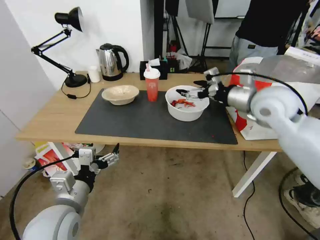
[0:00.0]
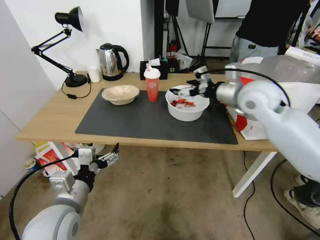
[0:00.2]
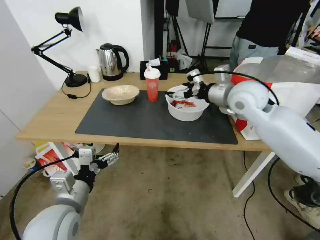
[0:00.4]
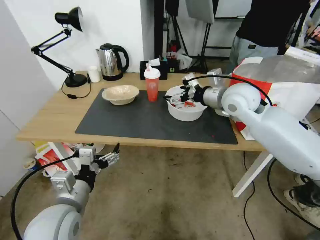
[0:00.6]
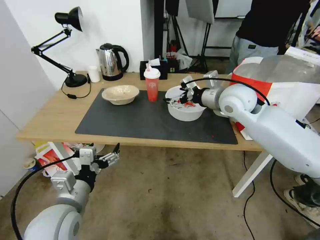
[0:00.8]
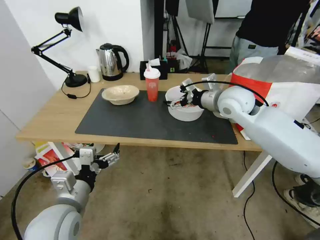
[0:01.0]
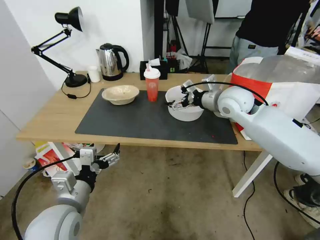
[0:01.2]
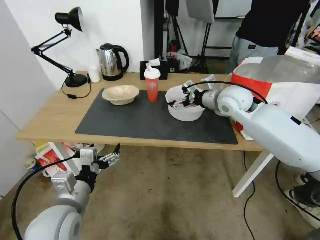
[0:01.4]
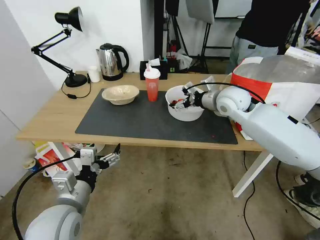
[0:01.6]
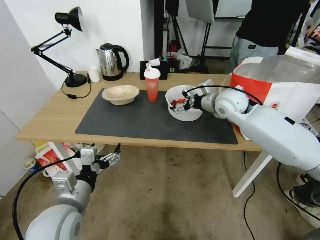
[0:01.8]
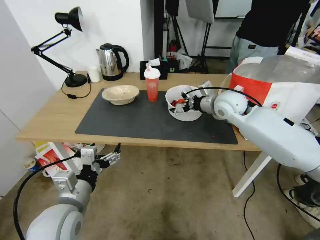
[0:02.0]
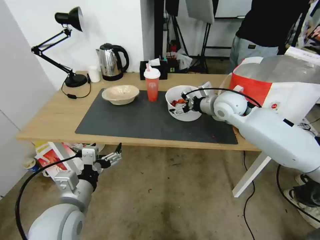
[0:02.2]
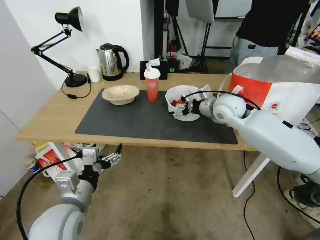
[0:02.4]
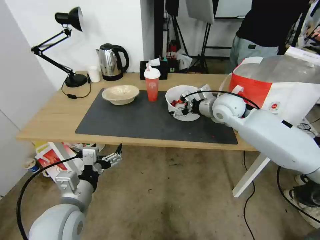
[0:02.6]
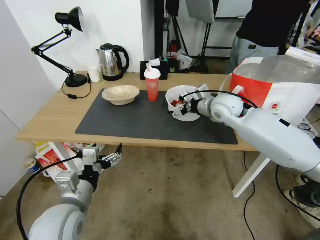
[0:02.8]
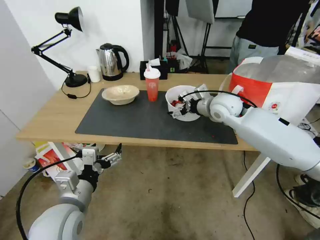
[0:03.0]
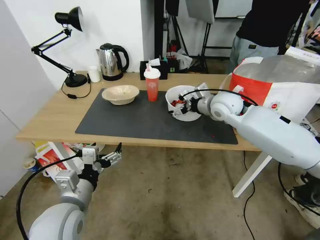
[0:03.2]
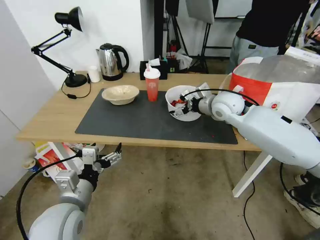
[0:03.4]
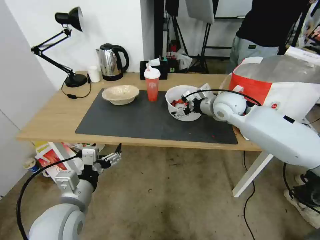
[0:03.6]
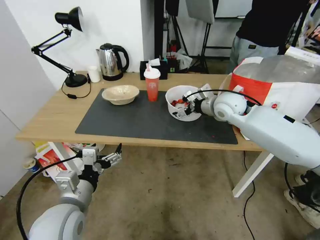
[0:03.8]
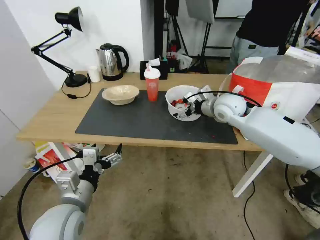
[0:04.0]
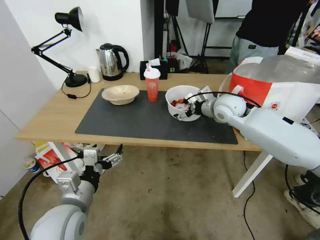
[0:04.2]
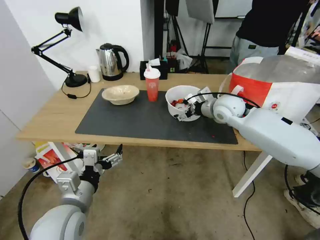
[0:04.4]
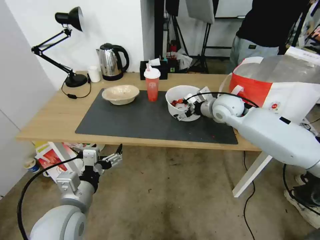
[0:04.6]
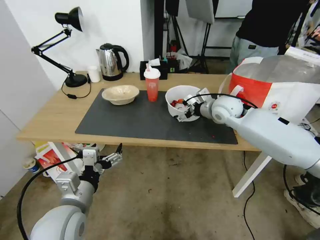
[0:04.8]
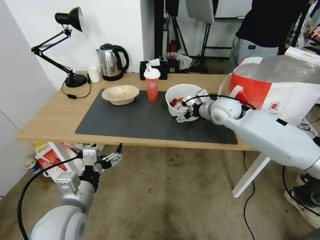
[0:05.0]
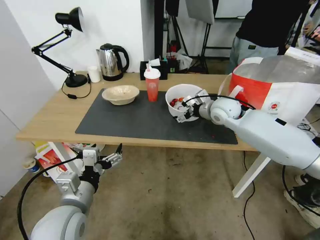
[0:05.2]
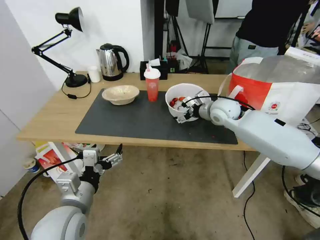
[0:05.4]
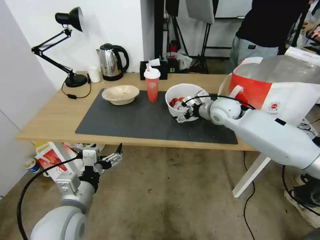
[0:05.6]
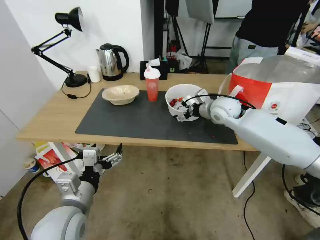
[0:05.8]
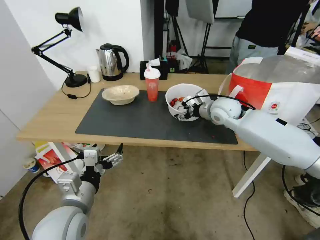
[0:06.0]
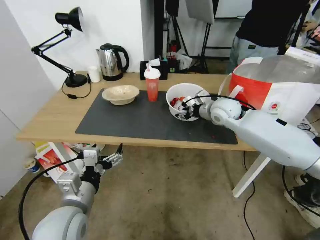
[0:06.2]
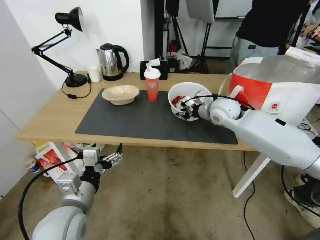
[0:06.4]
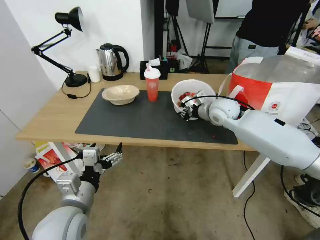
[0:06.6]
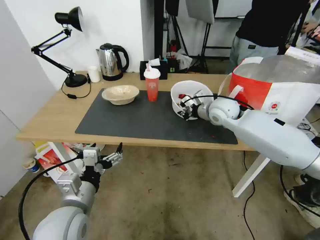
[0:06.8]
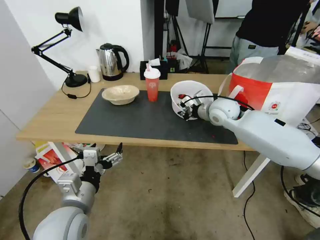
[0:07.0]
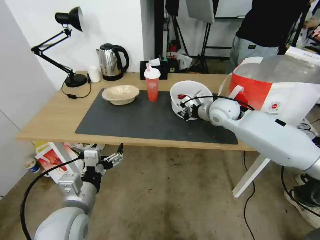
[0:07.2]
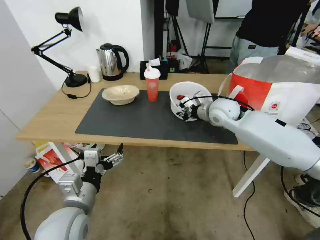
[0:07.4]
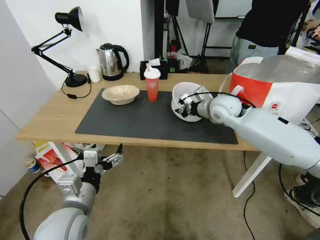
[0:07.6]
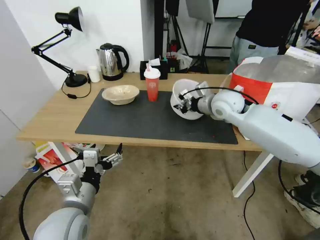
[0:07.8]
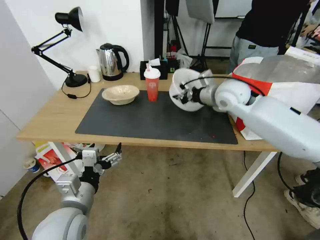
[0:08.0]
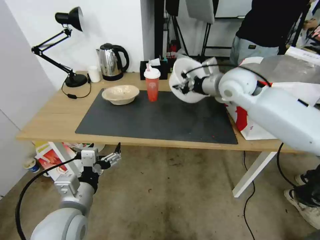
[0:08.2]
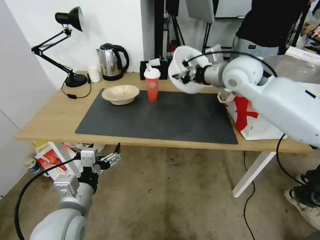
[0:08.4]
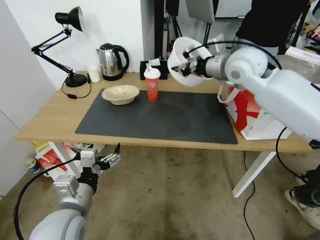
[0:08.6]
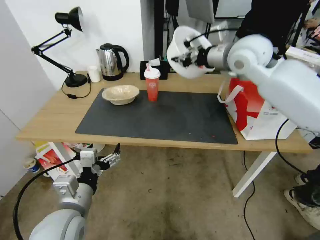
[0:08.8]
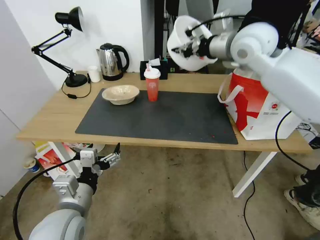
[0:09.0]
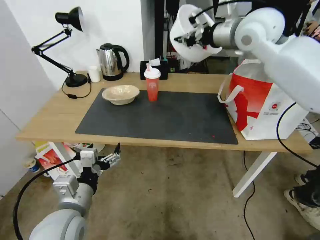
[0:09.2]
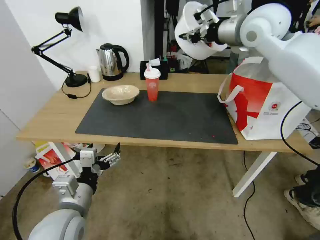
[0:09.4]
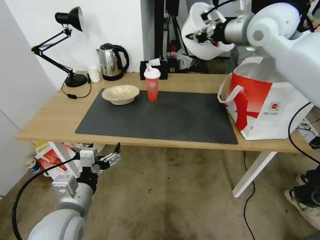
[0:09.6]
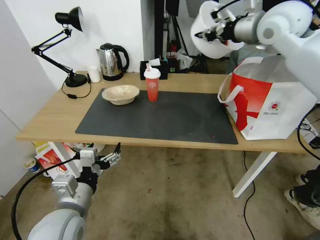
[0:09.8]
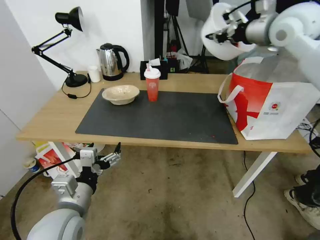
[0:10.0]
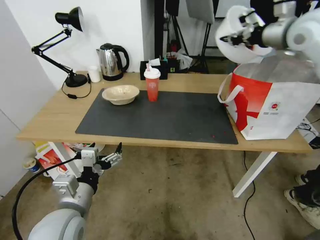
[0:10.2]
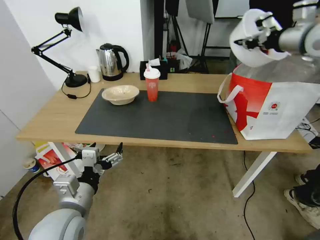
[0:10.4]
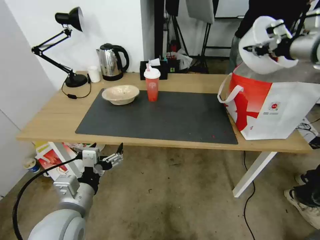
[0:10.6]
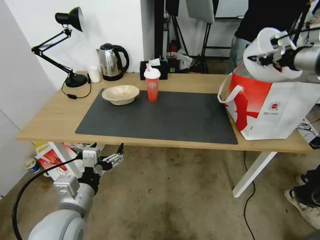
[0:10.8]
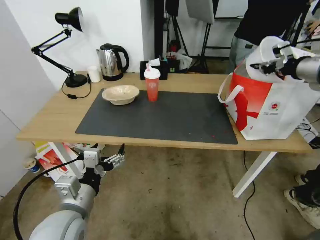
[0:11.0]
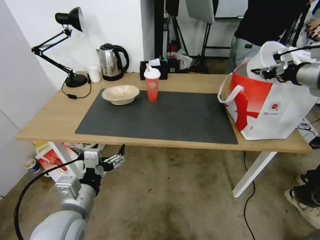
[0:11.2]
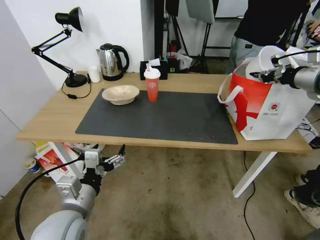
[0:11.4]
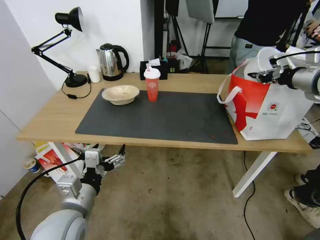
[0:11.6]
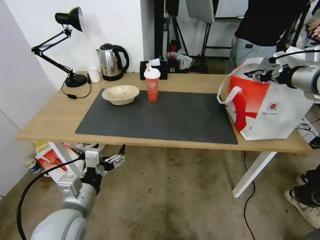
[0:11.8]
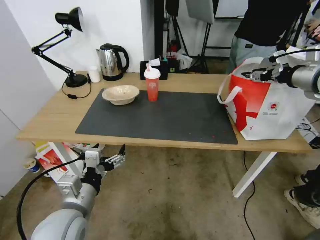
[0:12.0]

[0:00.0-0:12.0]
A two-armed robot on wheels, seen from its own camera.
Task of the whole recording: Pick up the trash from the table and place it into the takeout bag.
0:00.0 to 0:01.6: The right gripper goes some 15 cm forward and to the left.
0:01.6 to 0:06.0: There are only small adjustments of the grippers.
0:06.0 to 0:07.6: The right gripper closes its fingers.
0:07.6 to 0:09.0: The right gripper travels upward by approximately 20 cm.
0:09.0 to 0:10.4: The right gripper travels to the right by about 15 cm.
0:10.4 to 0:12.0: The right gripper moves downward and to the right, some 10 cm, and opens.

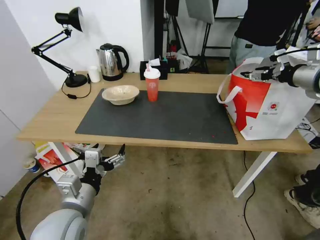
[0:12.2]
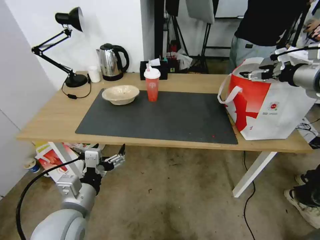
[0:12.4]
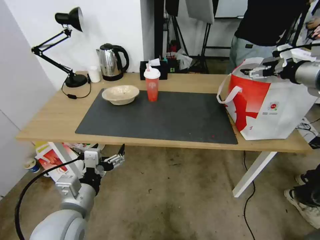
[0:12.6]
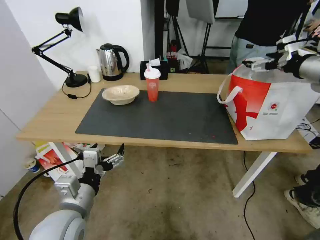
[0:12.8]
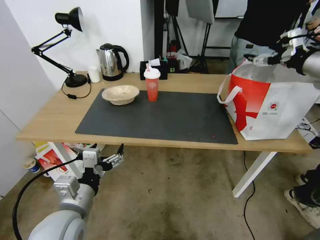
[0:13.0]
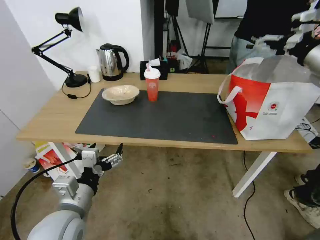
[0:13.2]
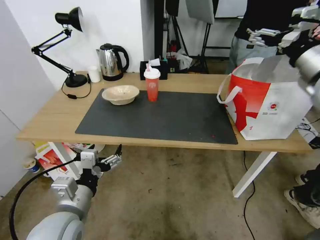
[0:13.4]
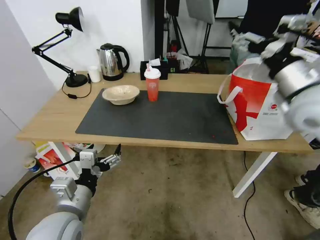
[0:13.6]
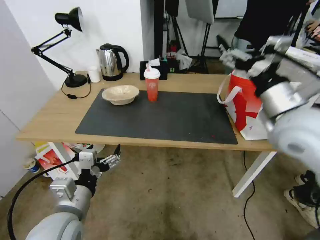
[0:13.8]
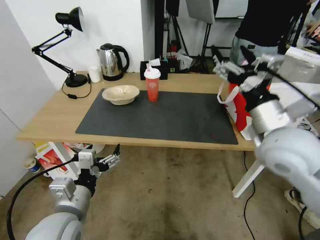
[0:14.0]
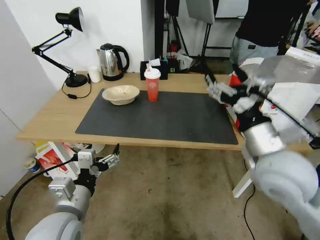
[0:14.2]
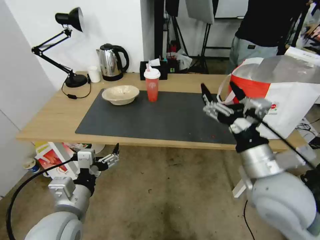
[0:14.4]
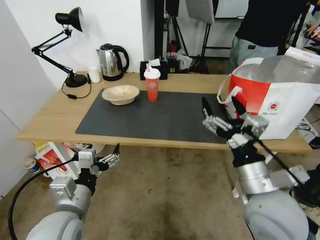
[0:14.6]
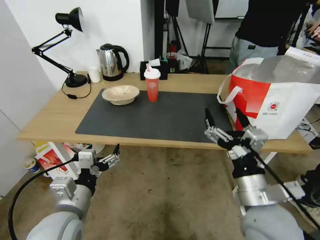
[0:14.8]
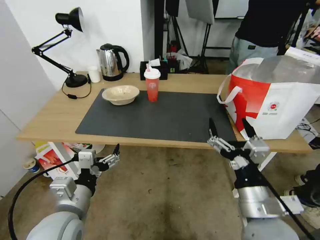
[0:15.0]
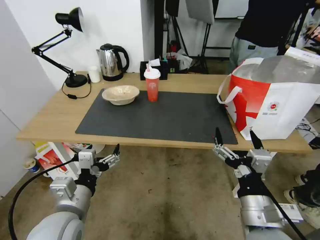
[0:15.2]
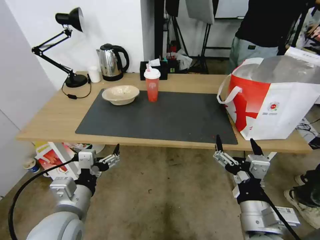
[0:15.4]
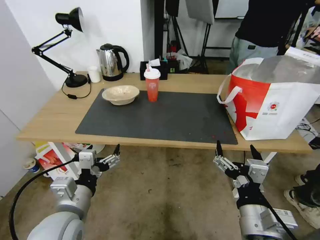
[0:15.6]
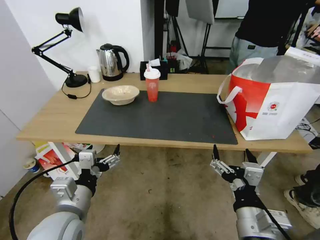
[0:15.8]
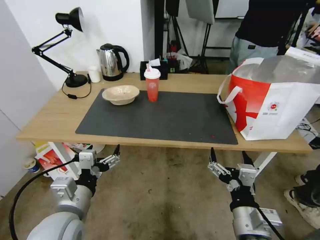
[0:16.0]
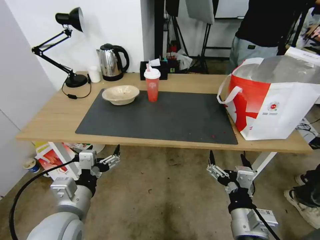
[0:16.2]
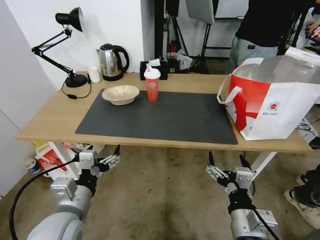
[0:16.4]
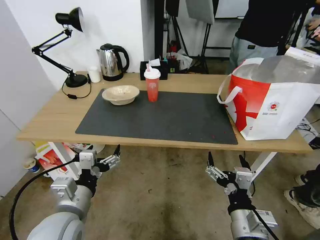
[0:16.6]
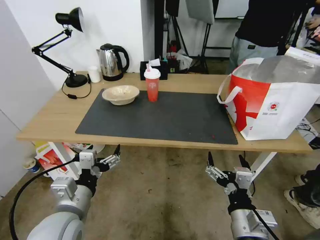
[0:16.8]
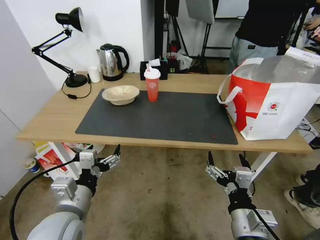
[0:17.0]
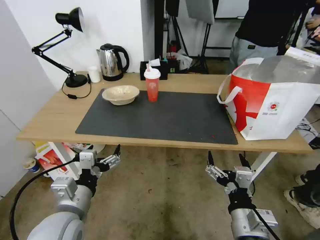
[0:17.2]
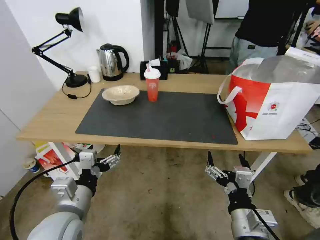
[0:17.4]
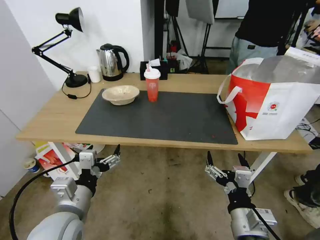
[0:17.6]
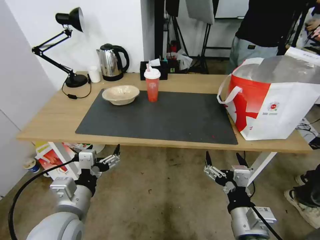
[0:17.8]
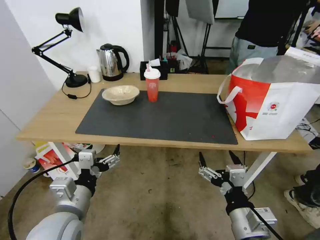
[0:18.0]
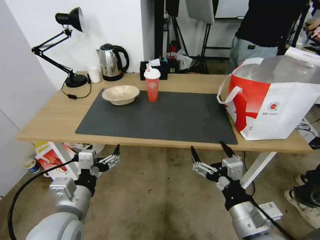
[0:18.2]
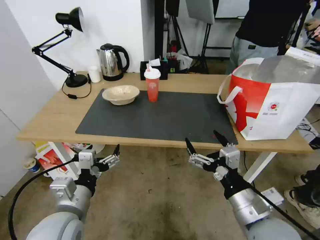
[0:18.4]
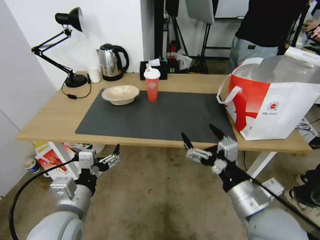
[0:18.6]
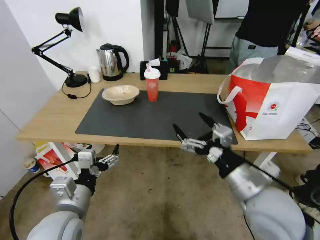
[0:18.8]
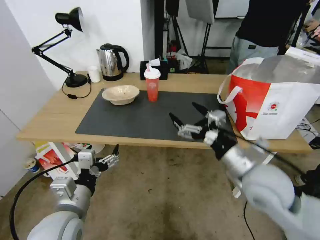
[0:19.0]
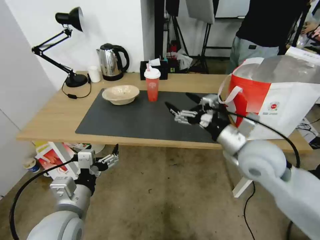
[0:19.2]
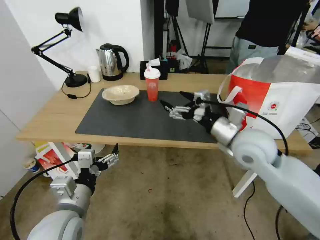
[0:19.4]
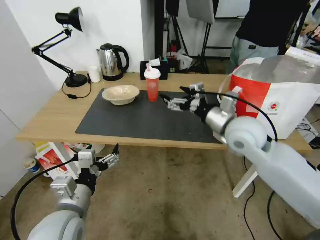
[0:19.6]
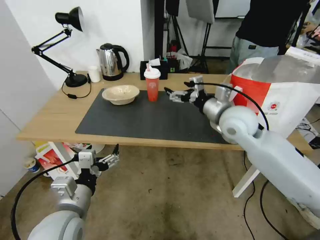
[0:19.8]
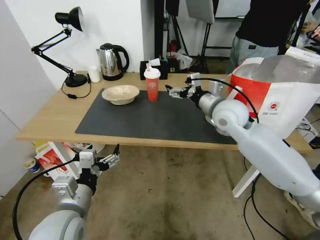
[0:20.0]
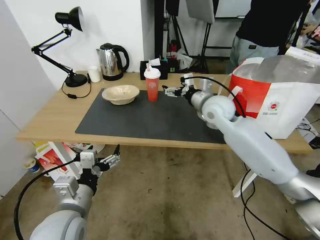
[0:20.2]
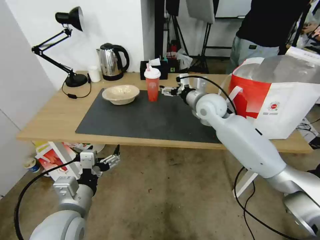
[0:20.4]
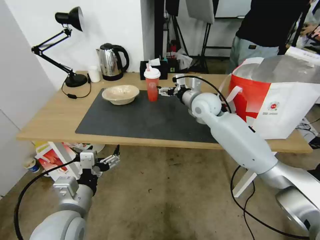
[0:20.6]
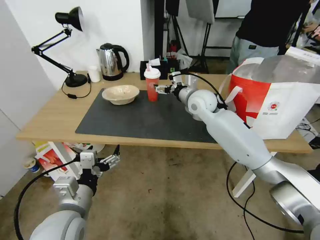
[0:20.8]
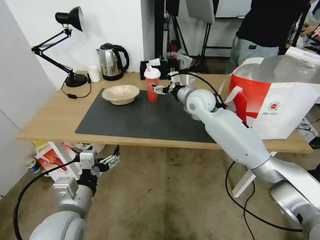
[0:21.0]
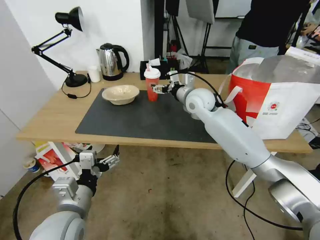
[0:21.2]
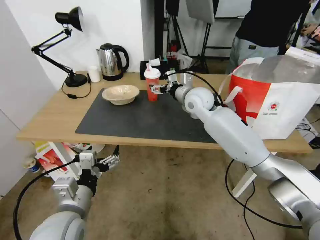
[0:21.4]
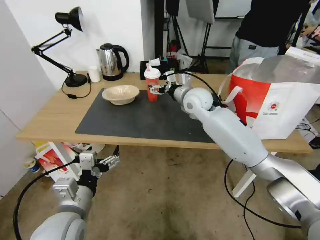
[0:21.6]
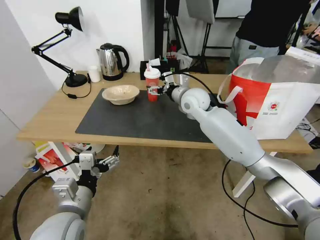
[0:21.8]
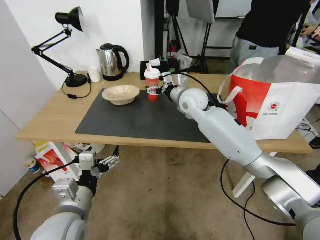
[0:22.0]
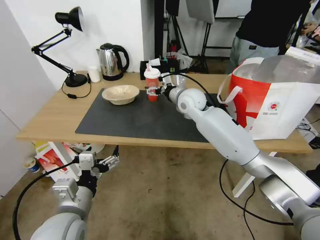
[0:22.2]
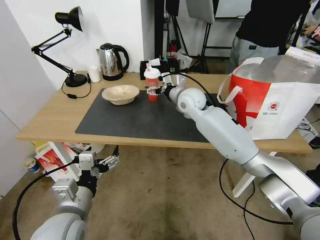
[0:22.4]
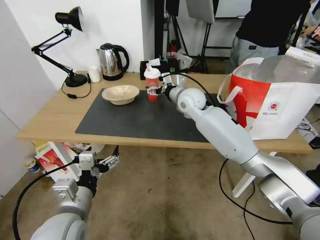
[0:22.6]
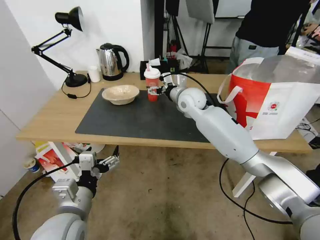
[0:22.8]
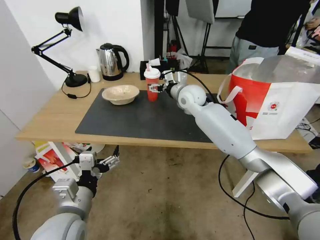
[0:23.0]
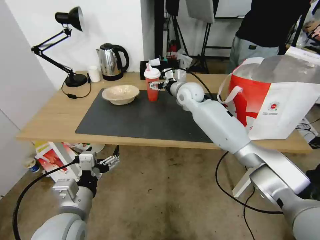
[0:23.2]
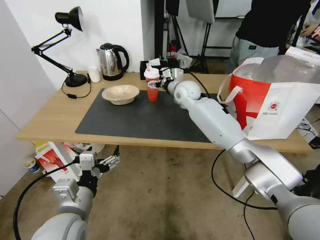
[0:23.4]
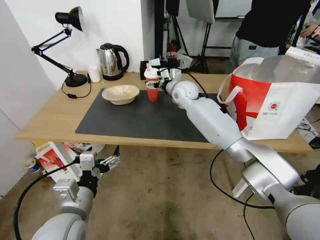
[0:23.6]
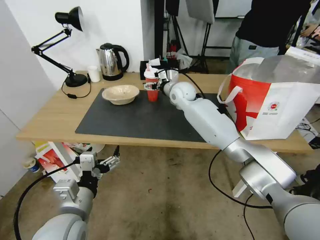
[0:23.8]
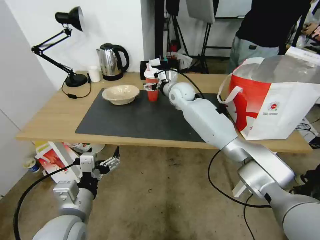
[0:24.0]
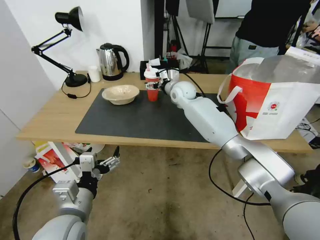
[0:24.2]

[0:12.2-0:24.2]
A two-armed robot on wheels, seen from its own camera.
Task of the whole recording: Pick up the trash from the table and place it into the takeout bag.
0:12.2 to 0:13.8: The right gripper goes about 20 cm to the left and backward.
0:13.8 to 0:15.2: The right gripper travels backward, downward and to the left by about 25 cm.
0:15.2 to 0:18.2: The grippers make only small movements.
0:18.2 to 0:19.8: The right gripper is displaced forward by some 25 cm.
0:19.8 to 0:21.2: The right gripper shifts about 15 cm forward and to the left.
0:21.2 to 0:22.6: The grippers make only small movements.
0:22.6 to 0:24.2: The right gripper is displaced forward by approximately 5 cm.
